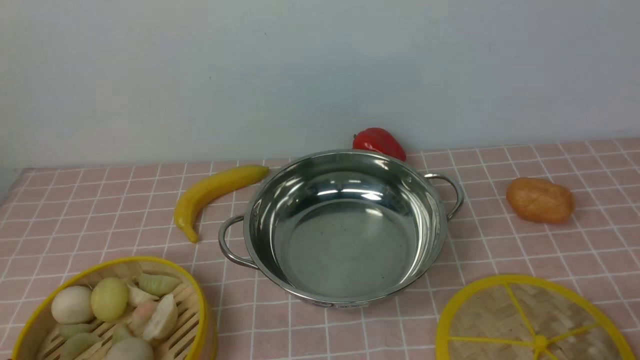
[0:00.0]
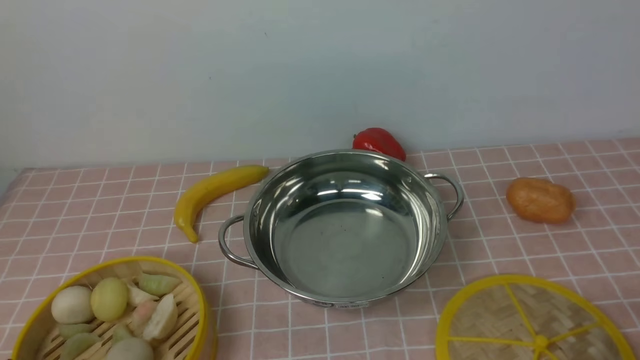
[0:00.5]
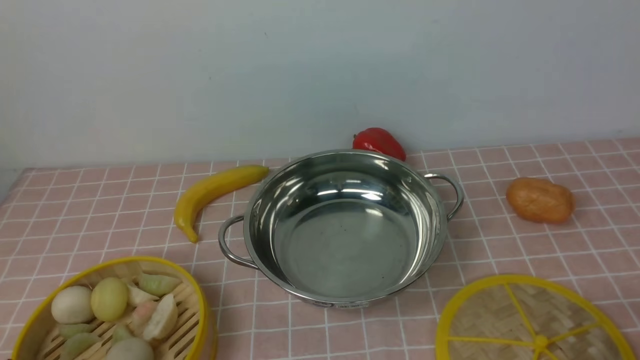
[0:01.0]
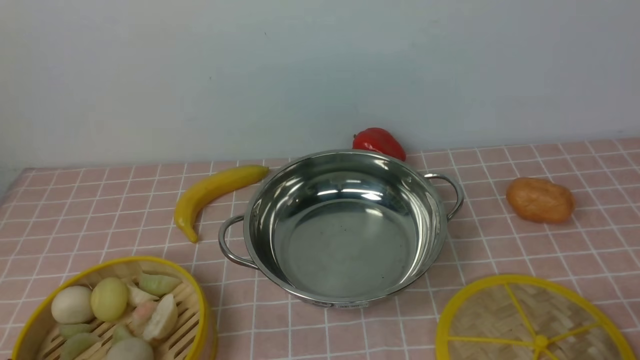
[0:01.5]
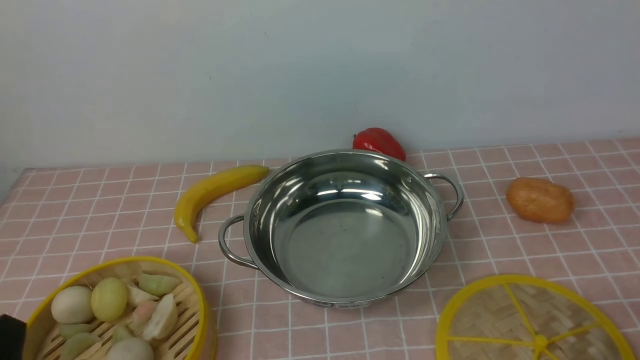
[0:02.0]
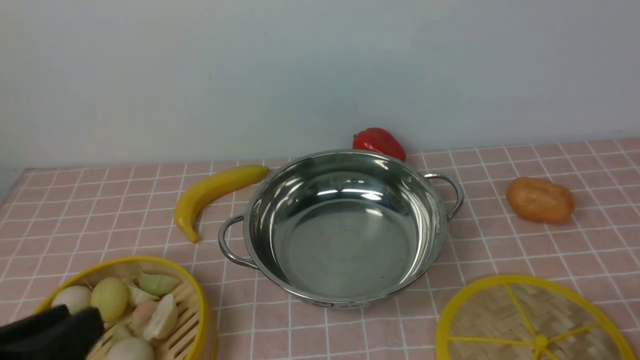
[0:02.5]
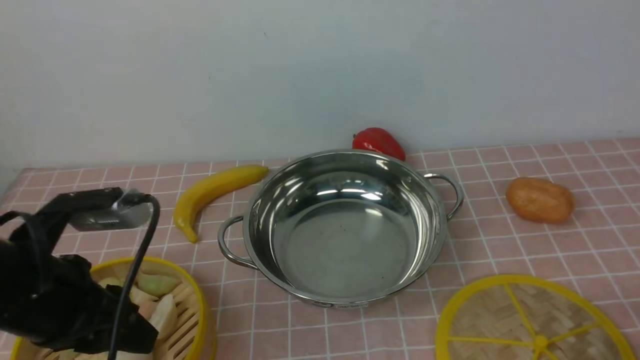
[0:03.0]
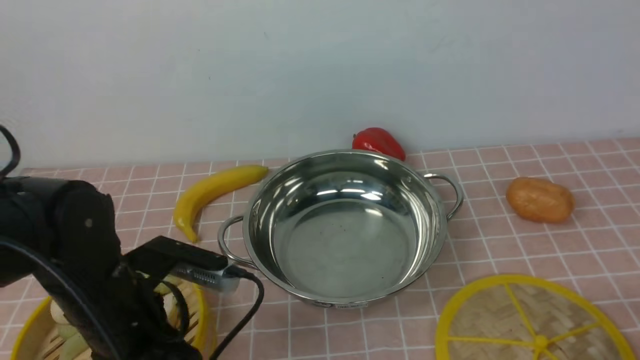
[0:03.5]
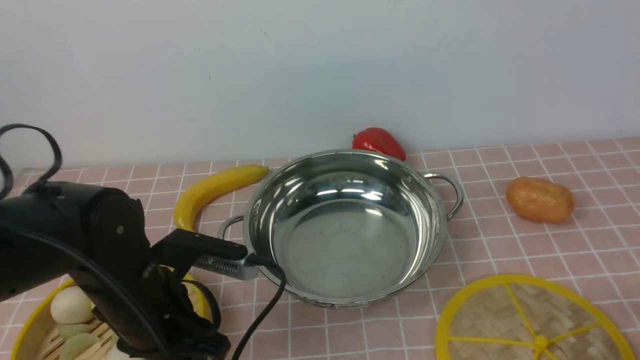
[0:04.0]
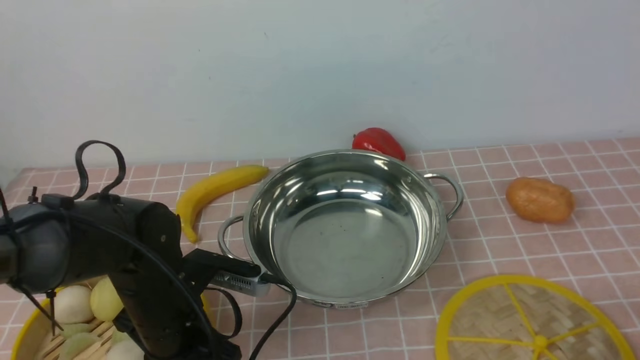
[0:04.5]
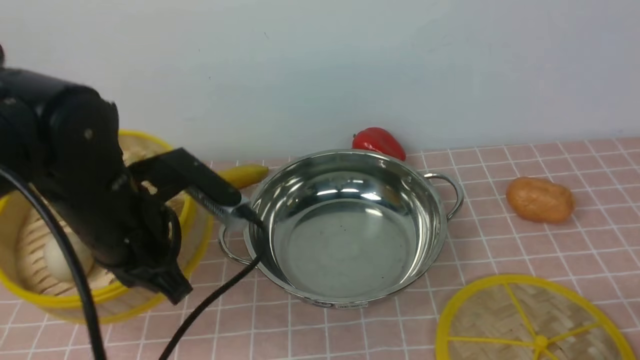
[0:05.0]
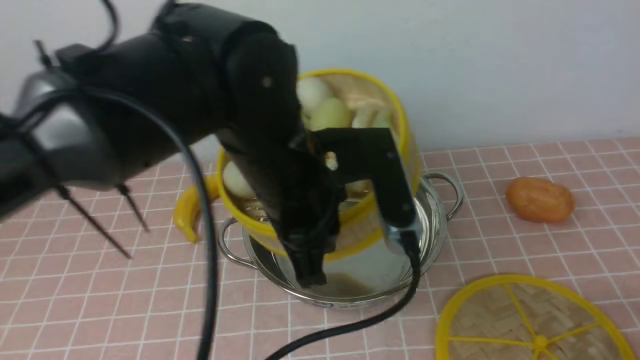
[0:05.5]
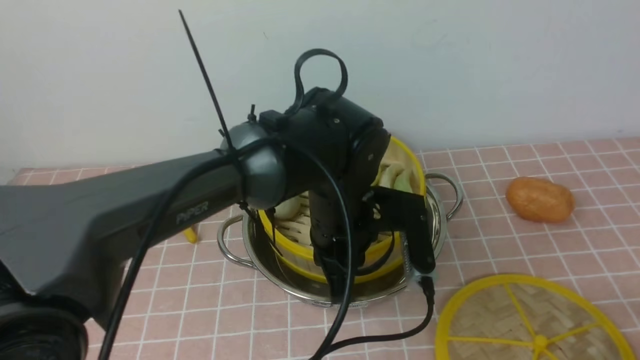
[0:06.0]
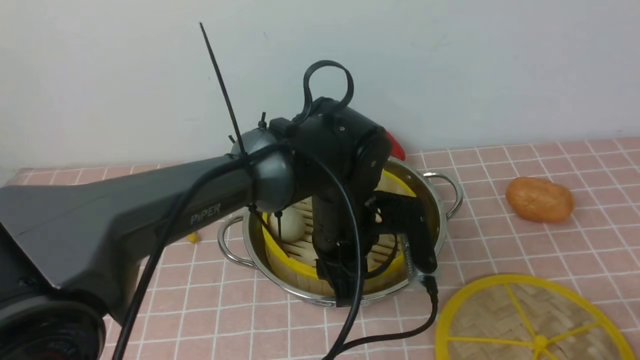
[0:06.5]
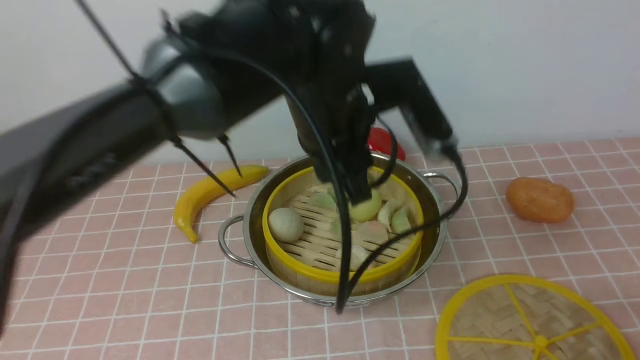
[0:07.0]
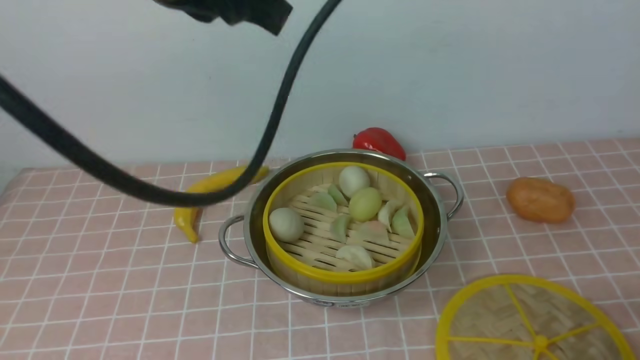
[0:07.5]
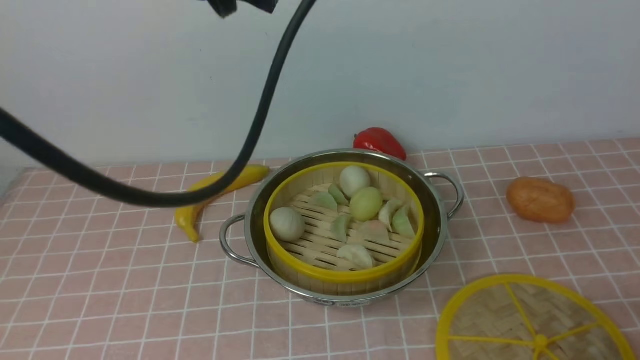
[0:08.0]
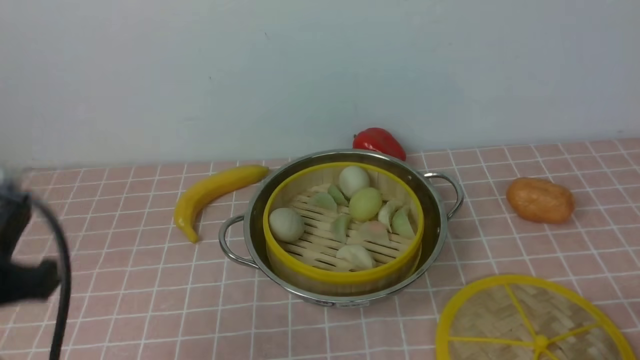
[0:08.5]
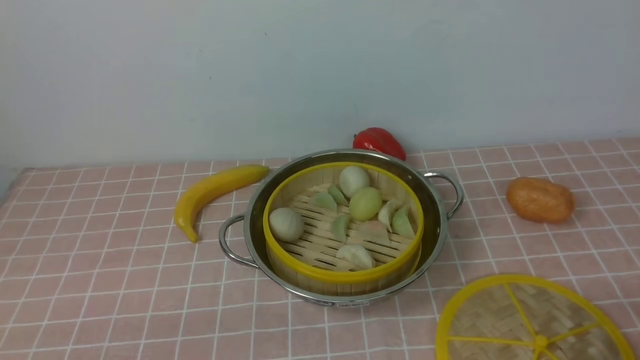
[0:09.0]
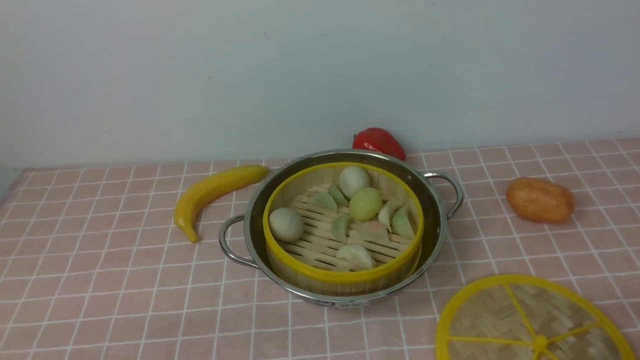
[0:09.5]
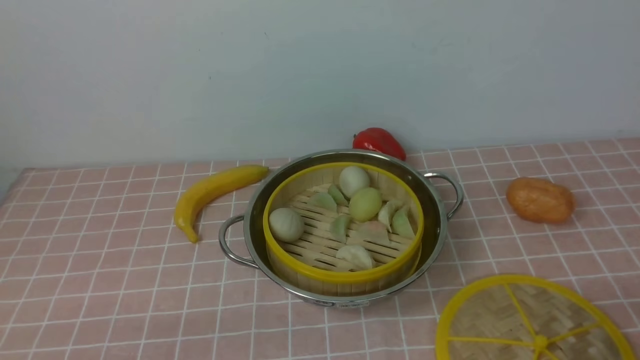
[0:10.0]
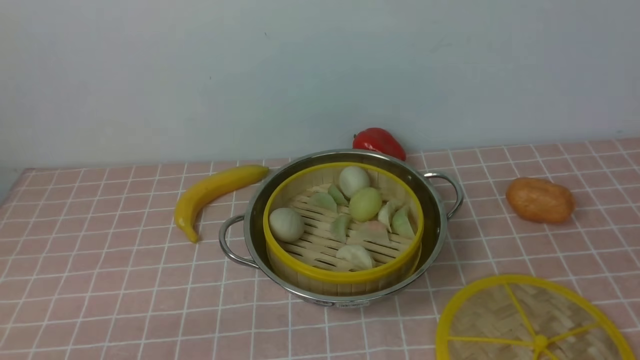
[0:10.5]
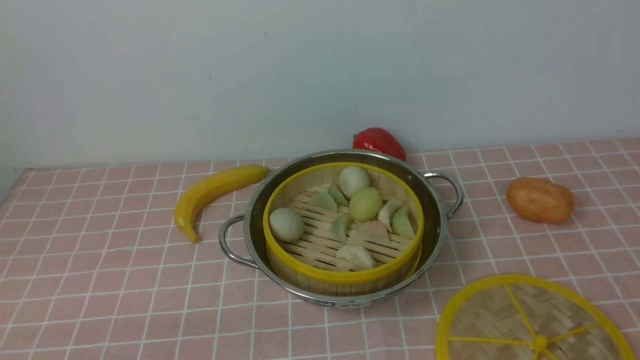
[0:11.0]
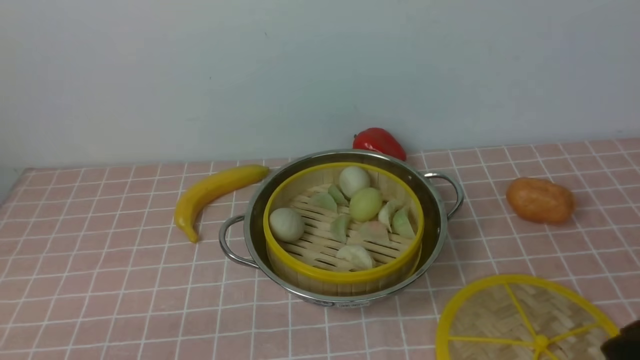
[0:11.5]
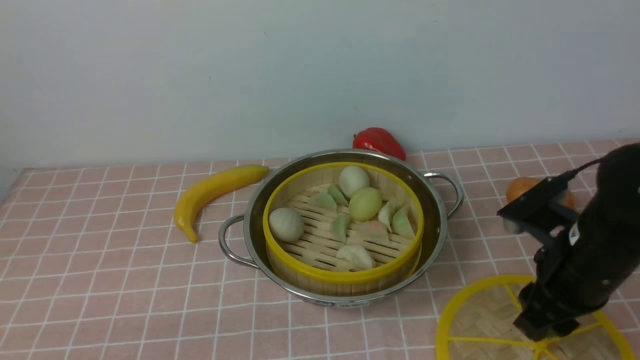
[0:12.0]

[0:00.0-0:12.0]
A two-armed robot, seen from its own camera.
Task of the whole recording: place the steamer in the pot on the pink tablecloth, and put the lid on the steamer.
Step, 0:00.0 to 0:04.5: use the left arm to lift the steamer closest to it.
Step, 0:05.0 to 0:06.5: use the left arm to put the steamer into the iron steamer pot in the middle.
0:02.0 to 0:04.0: The left gripper is displaced forward and to the right by about 20 cm.
0:04.0 to 0:06.0: The left gripper travels to the right and forward by roughly 20 cm, and closes.
0:06.0 to 0:08.0: The left gripper moves upward and to the left, about 30 cm, and opens, then closes once more.
0:08.0 to 0:10.0: The left gripper goes approximately 40 cm downward, backward and to the left.
0:10.0 to 0:12.0: The right gripper travels forward and to the left by roughly 20 cm.

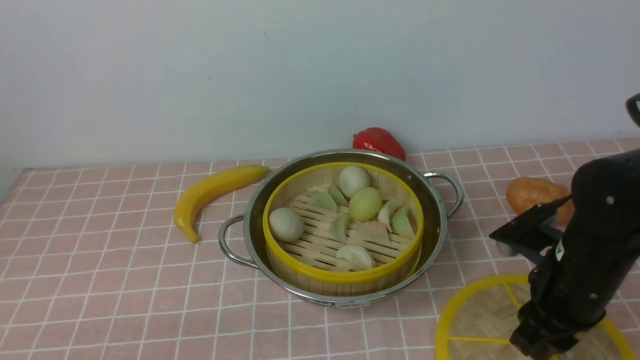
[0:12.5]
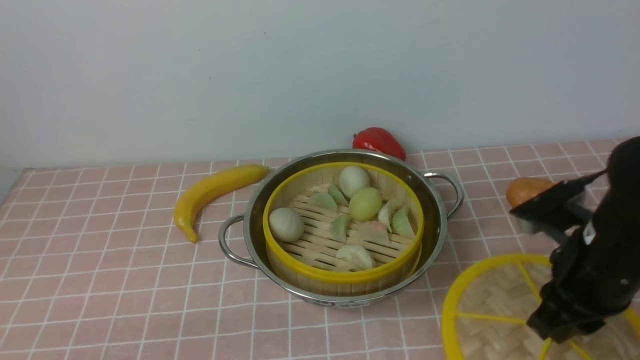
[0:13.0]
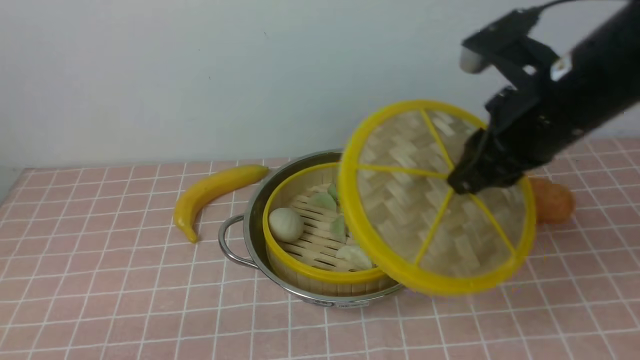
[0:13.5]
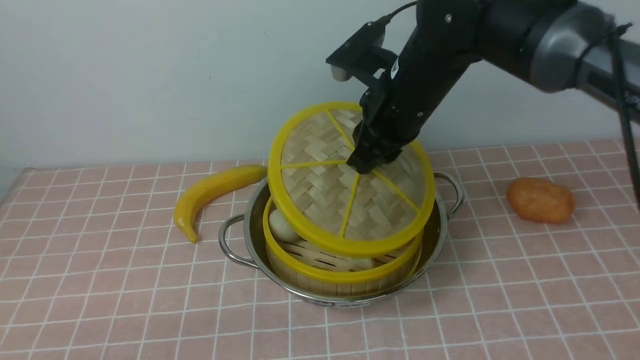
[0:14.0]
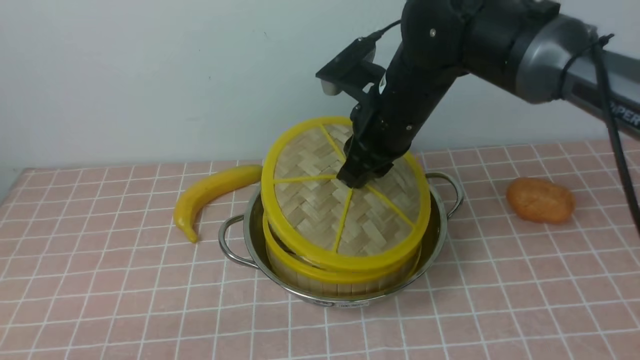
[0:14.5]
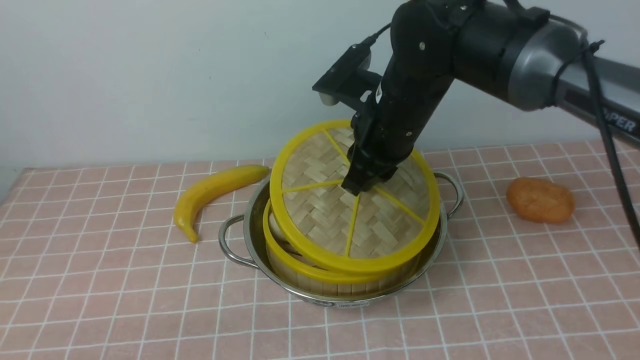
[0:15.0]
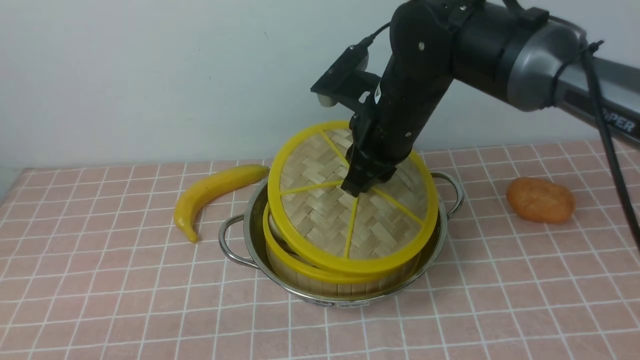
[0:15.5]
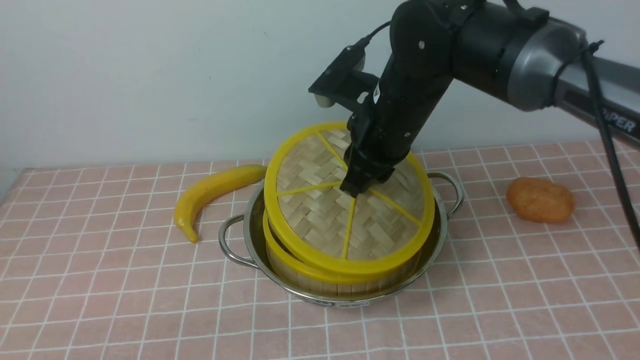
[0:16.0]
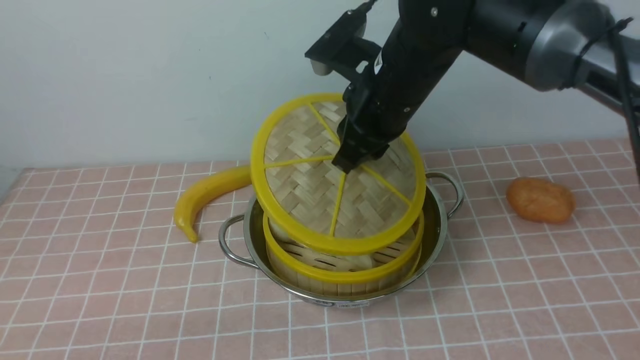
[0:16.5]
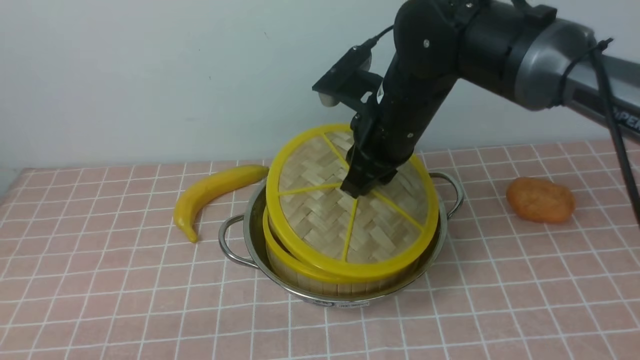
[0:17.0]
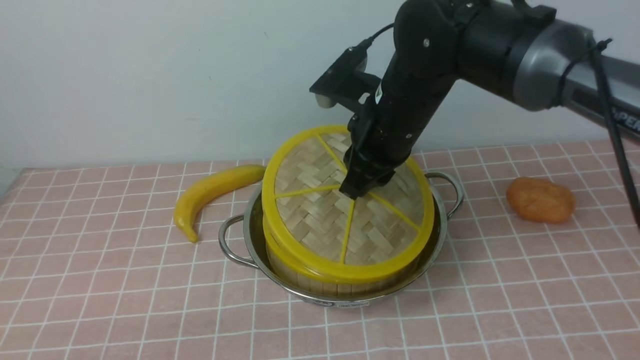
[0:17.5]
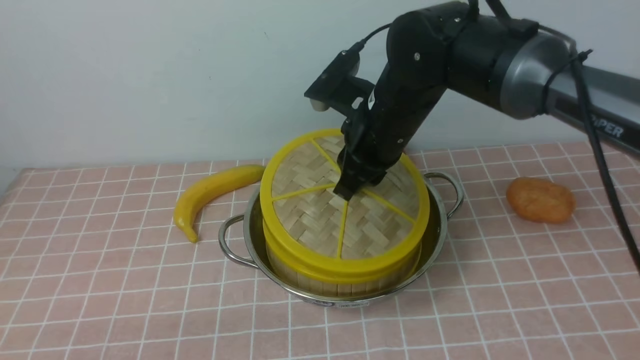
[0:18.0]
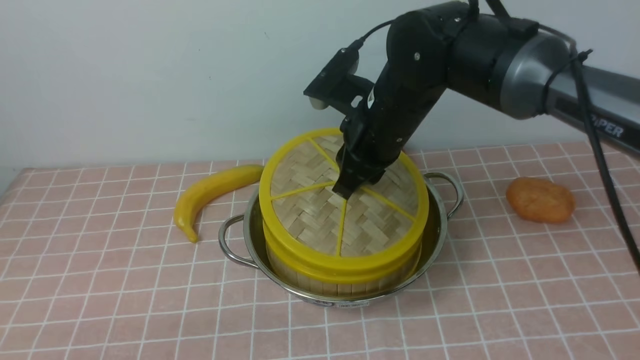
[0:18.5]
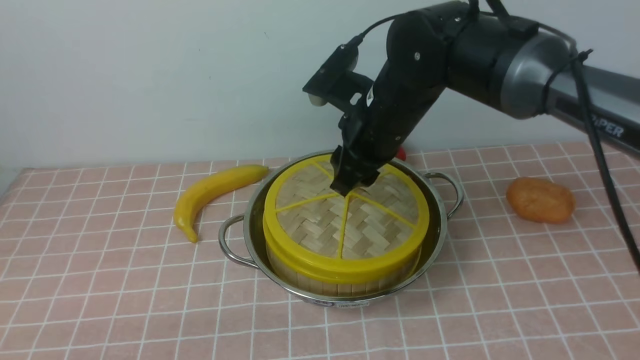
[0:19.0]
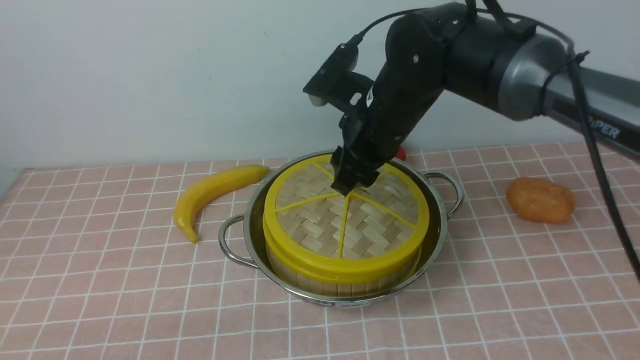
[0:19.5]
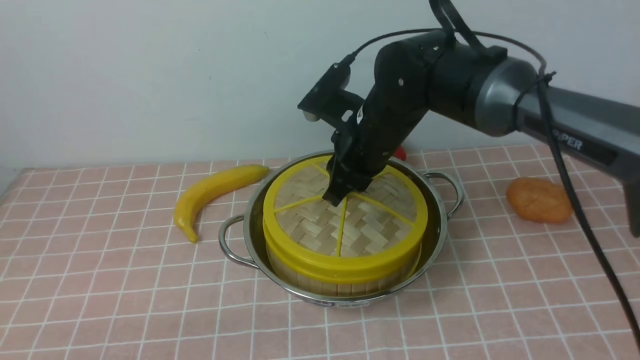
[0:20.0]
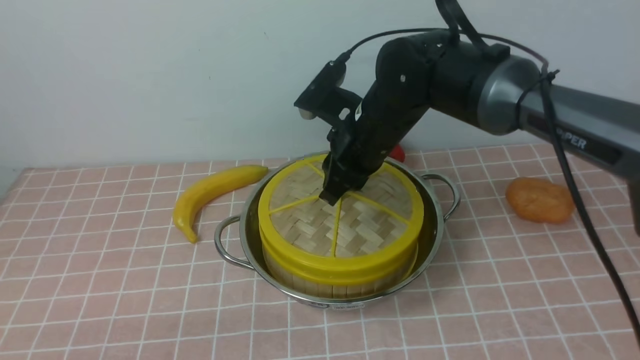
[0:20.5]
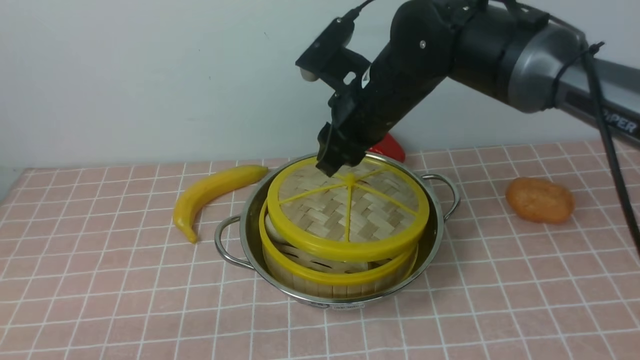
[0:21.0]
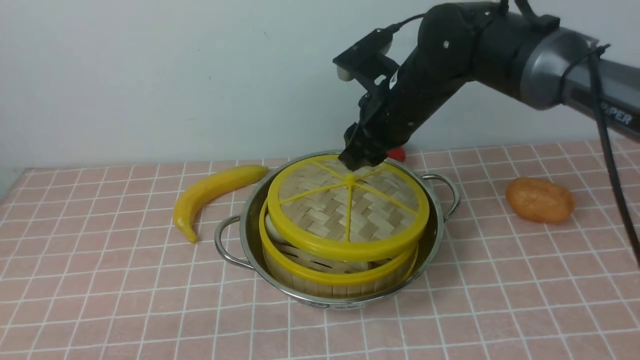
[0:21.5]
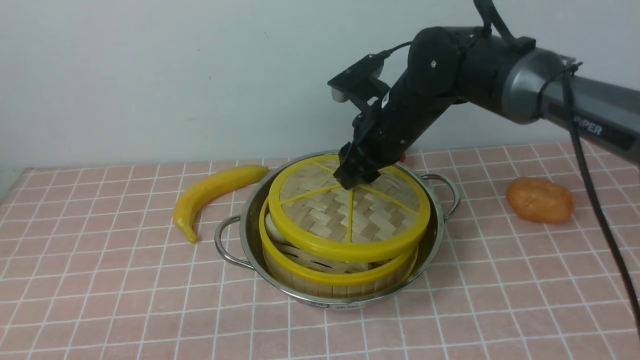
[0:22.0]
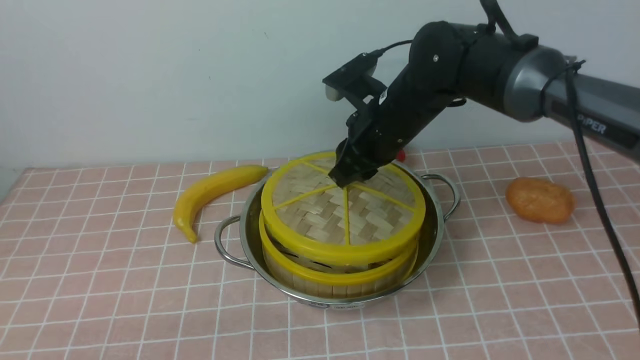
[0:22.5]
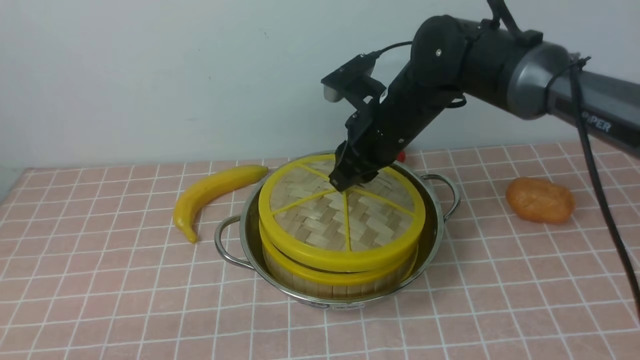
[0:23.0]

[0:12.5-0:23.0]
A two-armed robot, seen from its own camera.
Task of the whole recording: place the steamer in the pot on the pink tablecloth, and put the lid on the steamer.
0:12.5 to 0:14.5: The right gripper heads to the left, forward and upward, covering about 20 cm.
0:14.5 to 0:16.5: The grippers move only a little.
0:16.5 to 0:19.0: The right gripper opens.
0:19.0 to 0:21.0: The right gripper closes and opens again.
0:21.0 to 0:23.0: The right gripper closes.
